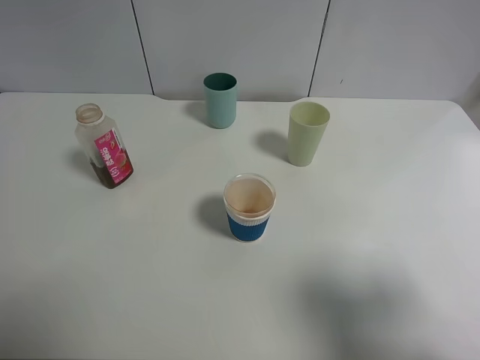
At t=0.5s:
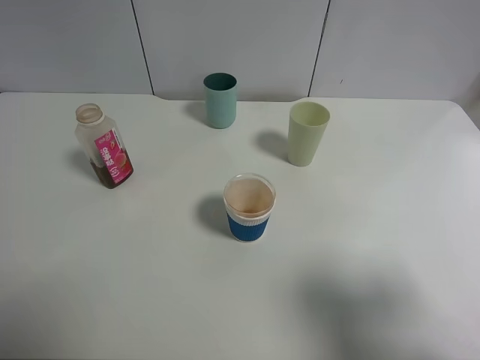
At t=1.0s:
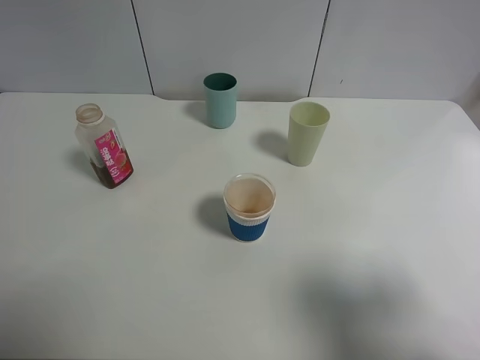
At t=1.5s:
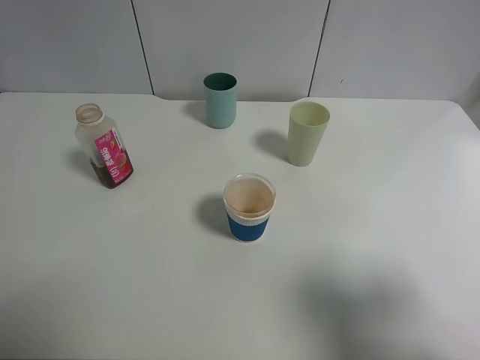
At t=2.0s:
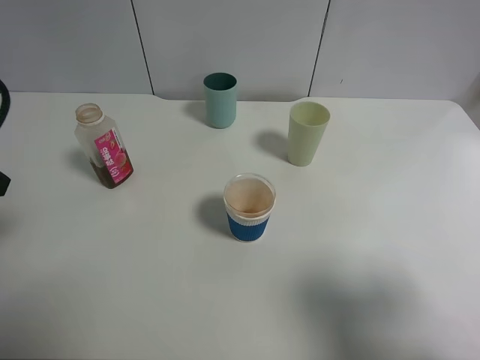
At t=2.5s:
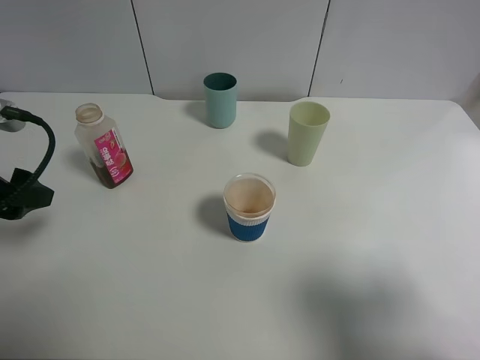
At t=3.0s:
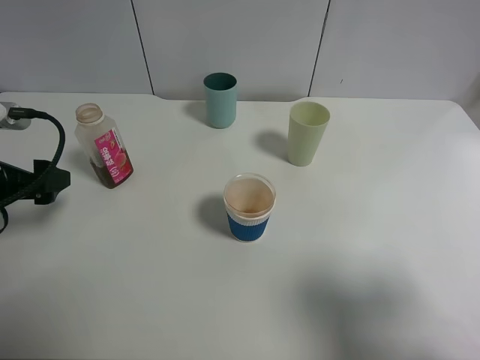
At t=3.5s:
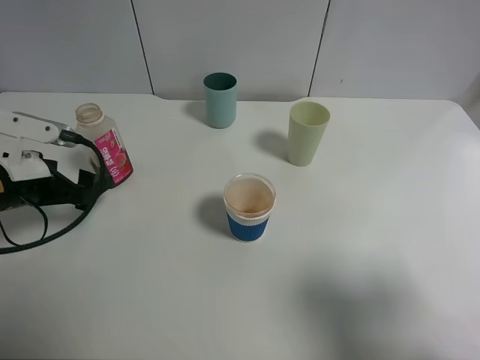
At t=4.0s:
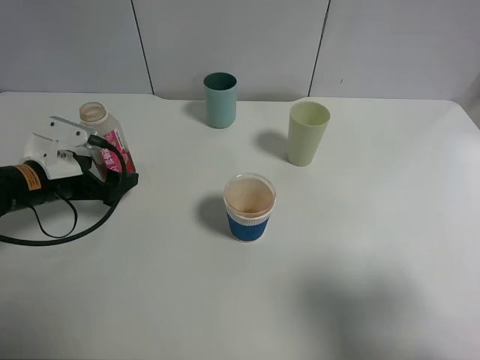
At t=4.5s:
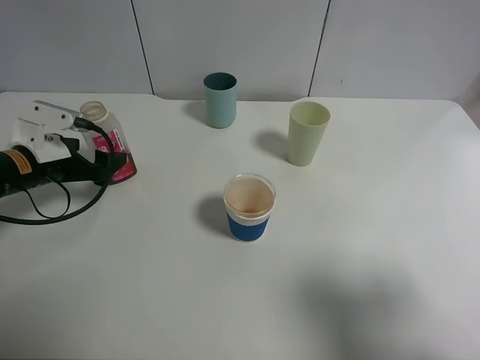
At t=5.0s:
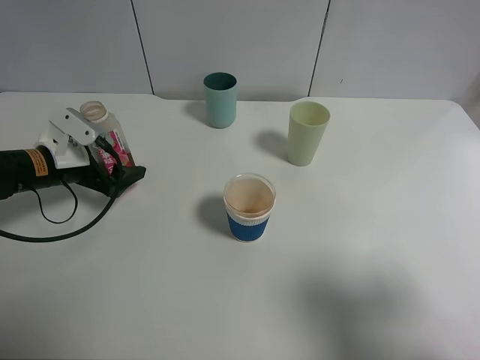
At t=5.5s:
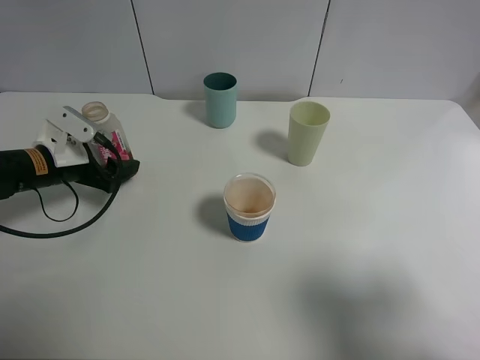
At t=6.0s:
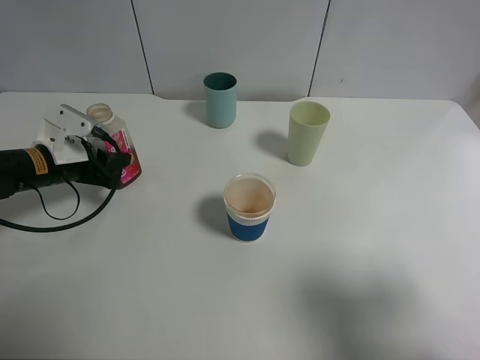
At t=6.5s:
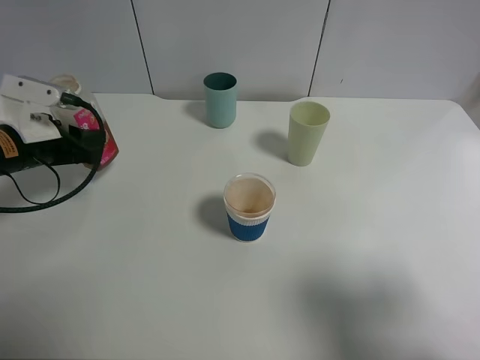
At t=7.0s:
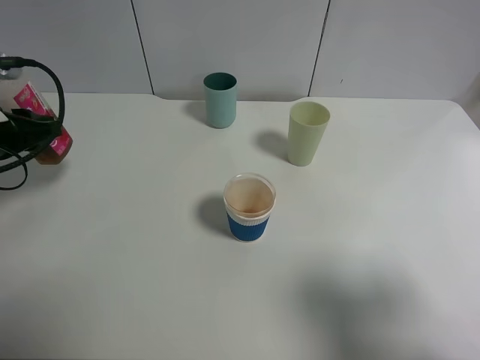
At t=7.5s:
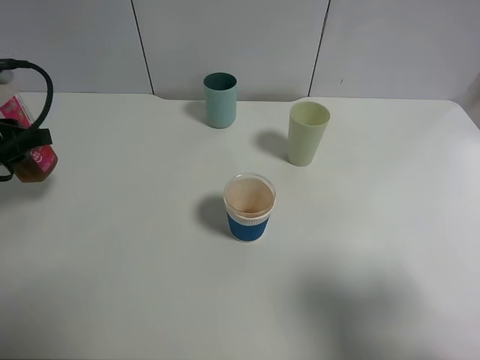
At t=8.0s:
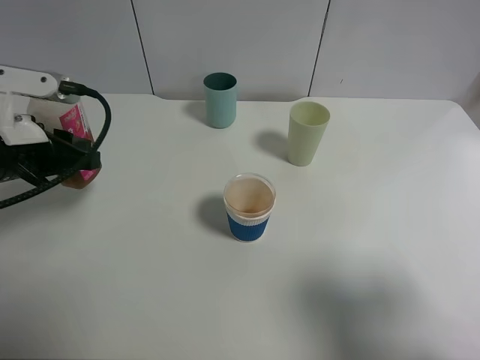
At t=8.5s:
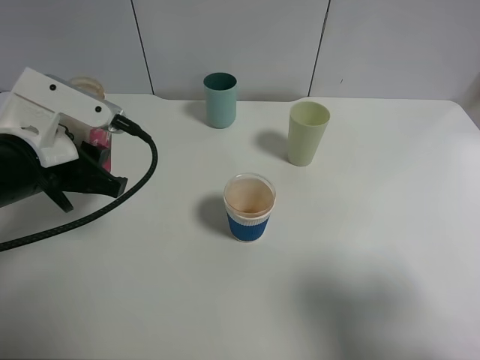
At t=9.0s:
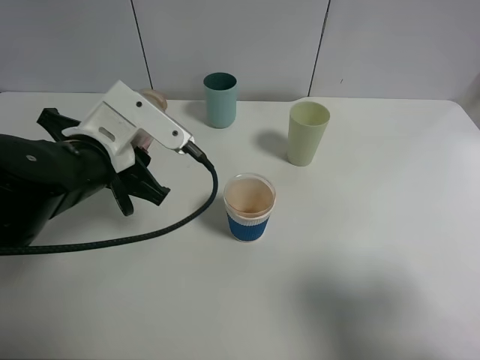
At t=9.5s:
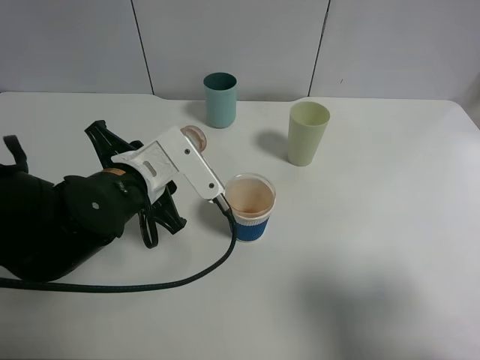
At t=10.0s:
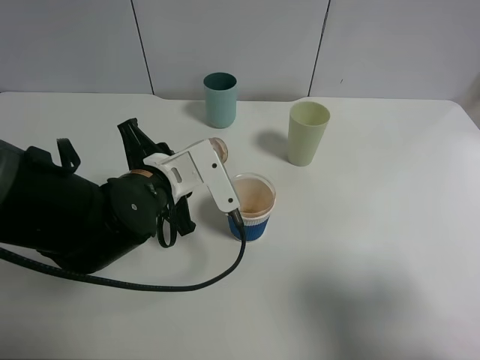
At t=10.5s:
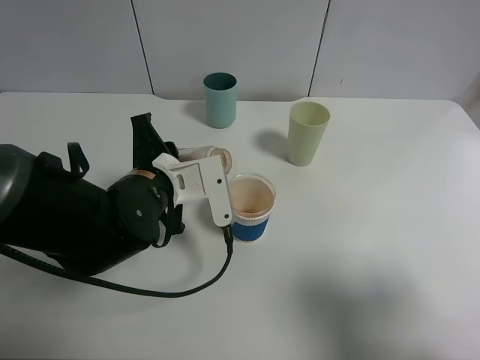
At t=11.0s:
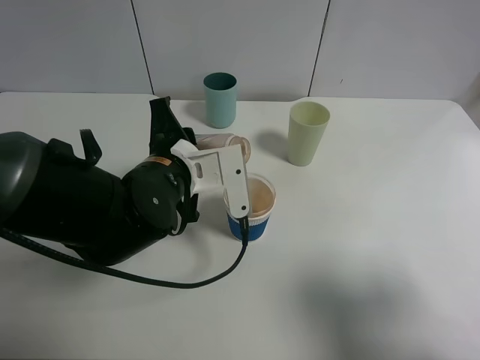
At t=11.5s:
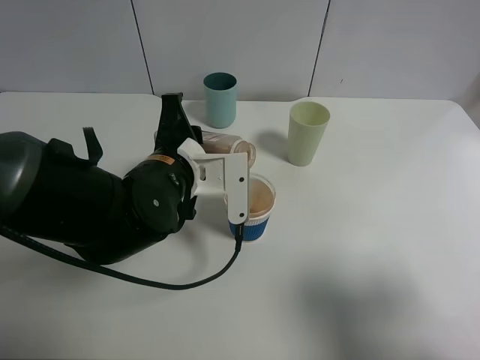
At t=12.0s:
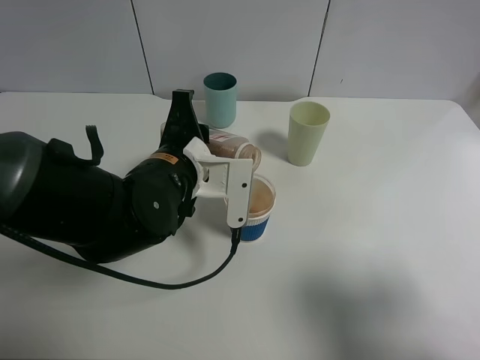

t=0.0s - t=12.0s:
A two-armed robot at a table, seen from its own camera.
Task of the whole recording: use a clamp to hold the bottle of the drink, pour the beverage into a random cup, then clamp the cup containing the drink and pour the drink into another random cup.
Step, t=0.0s - t=7.5s: Pick up the drink bottle with left gripper.
t=2.0s - t=4.0s: The left gripper heads downward and forward, covering approximately 20 cm.
t=4.0s - t=6.0s: The left gripper closes.
t=6.0s - t=8.0s: The left gripper is displaced upward and backward by roughly 15 cm.
t=8.0s - t=10.0s: The left gripper shifts some 15 cm to the right and downward.

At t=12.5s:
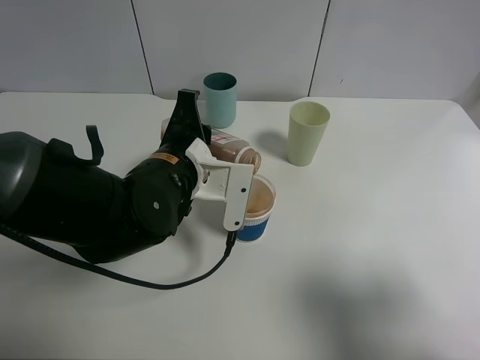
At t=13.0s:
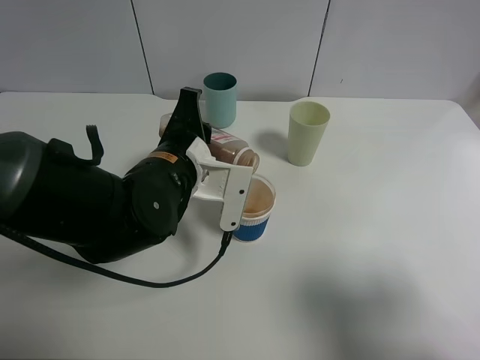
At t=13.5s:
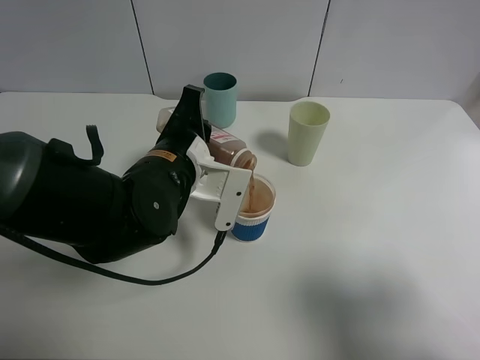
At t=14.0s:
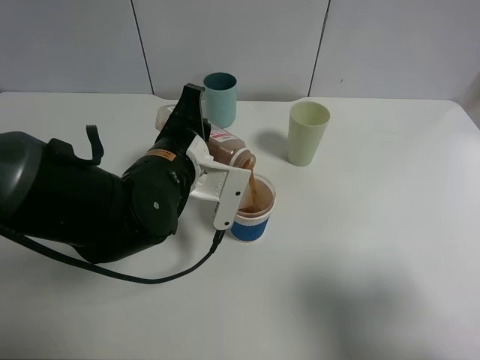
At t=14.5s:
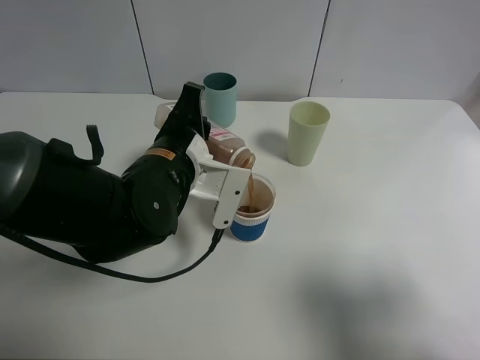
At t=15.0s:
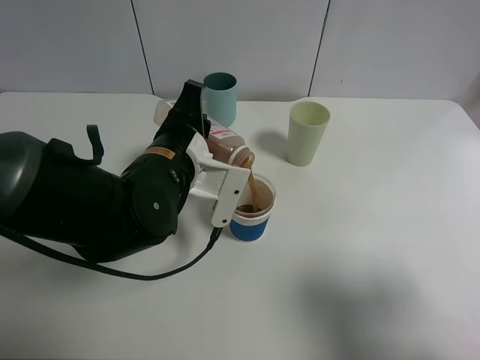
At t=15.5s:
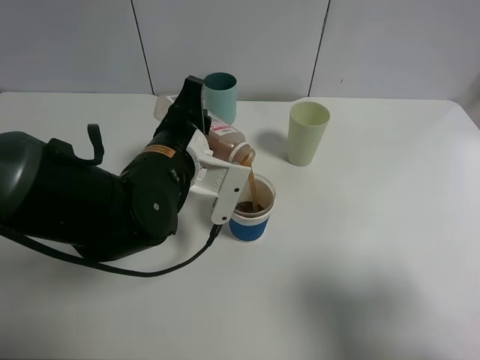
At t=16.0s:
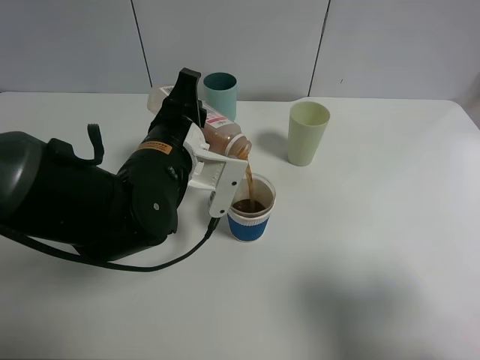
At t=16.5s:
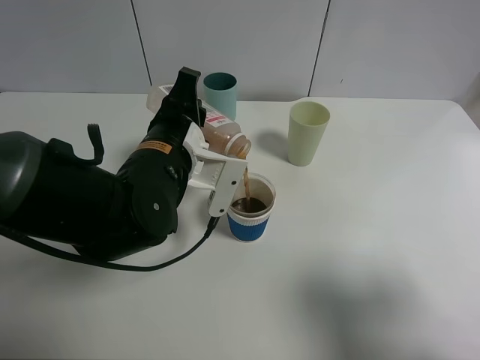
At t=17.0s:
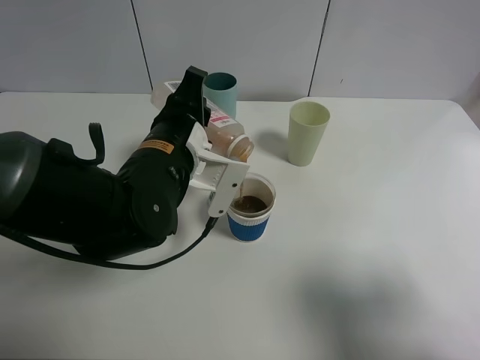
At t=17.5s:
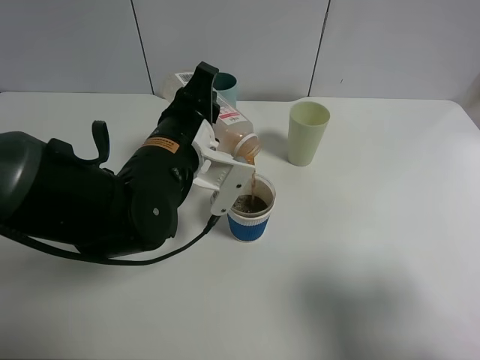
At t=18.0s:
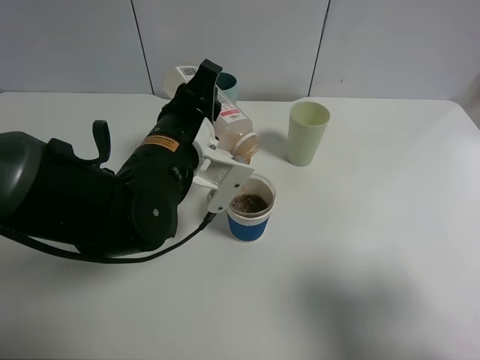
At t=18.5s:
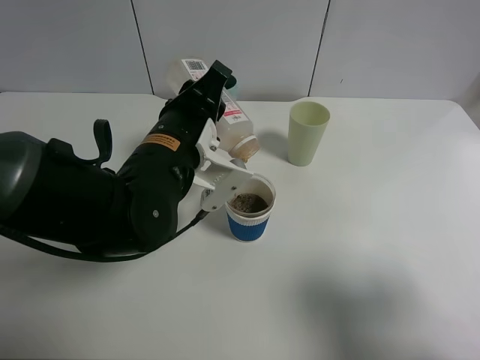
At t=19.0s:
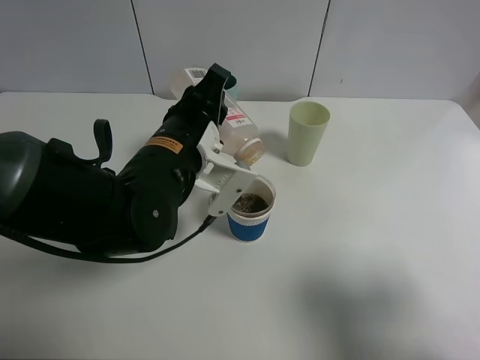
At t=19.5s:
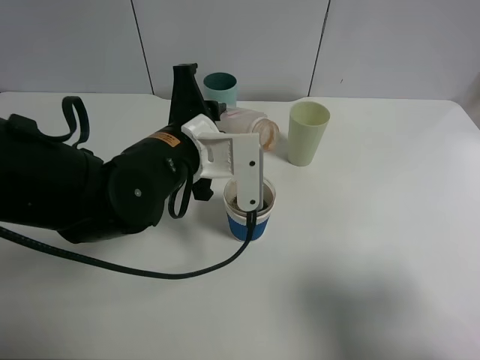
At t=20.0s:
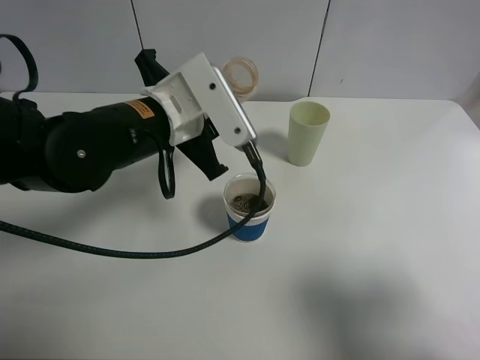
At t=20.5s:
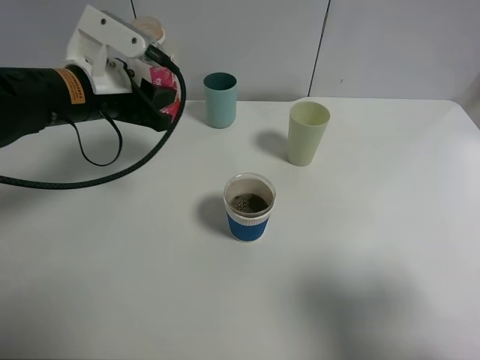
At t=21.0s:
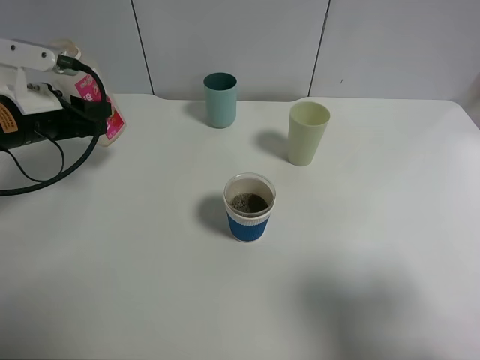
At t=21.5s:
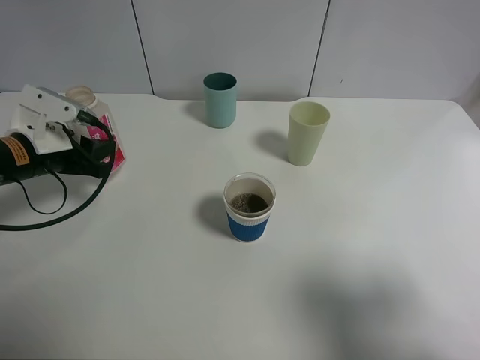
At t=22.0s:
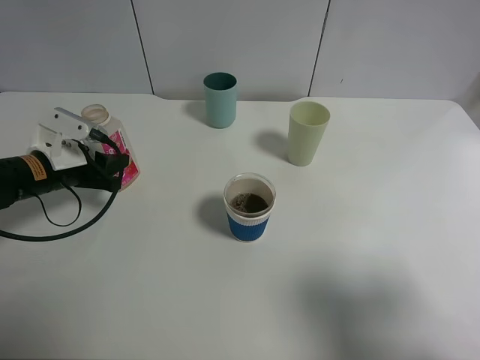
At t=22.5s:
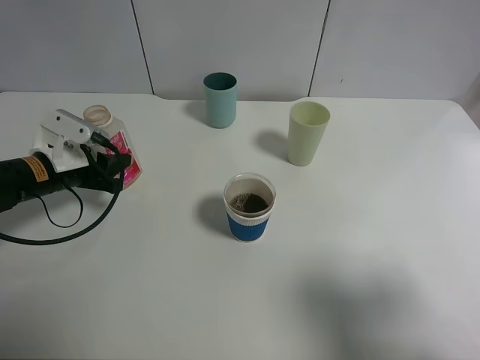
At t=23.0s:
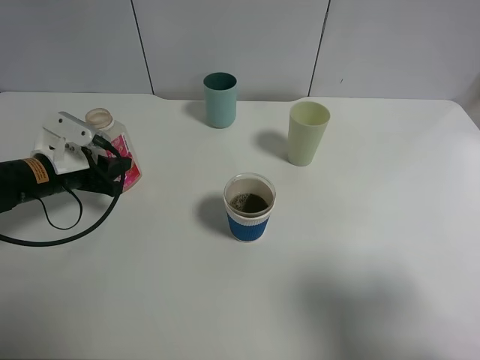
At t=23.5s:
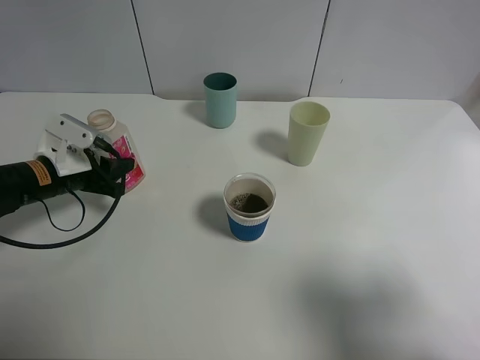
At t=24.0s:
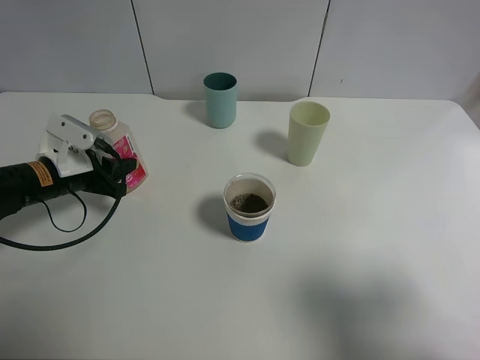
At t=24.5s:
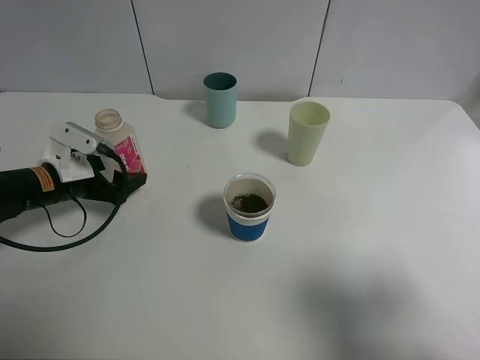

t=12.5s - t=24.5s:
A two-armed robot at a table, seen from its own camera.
Task of the whole recording: use a clamp to hold the bottle of the drink, pour the beverage into a random cup, then clamp the cup containing the drink and pour the drink into another random cup.
Step, t=12.5s - t=19.5s: Pour the drink into the paper cup with left gripper.
t=12.5s - t=16.5s: The grippers move only a little.
t=16.5s - t=18.5s: The grippers move only a little.
t=18.5s - t=20.5s: The left gripper heads to the left and forward, covering some 15 cm.
t=20.5s - t=22.5s: The left gripper heads downward and to the left, covering some 15 cm.
t=22.5s - t=24.5s: The left gripper opens its fingers.

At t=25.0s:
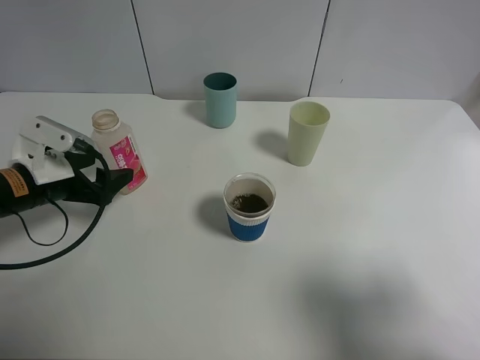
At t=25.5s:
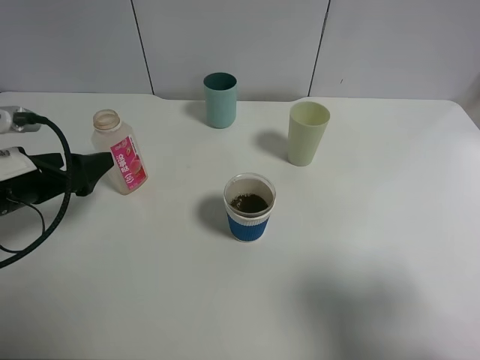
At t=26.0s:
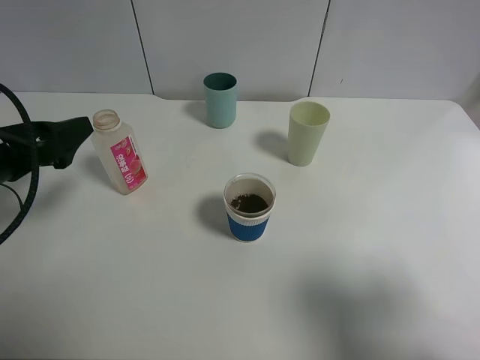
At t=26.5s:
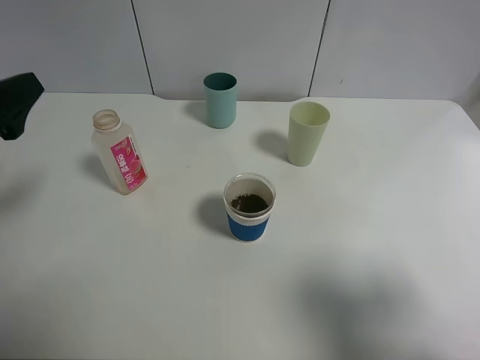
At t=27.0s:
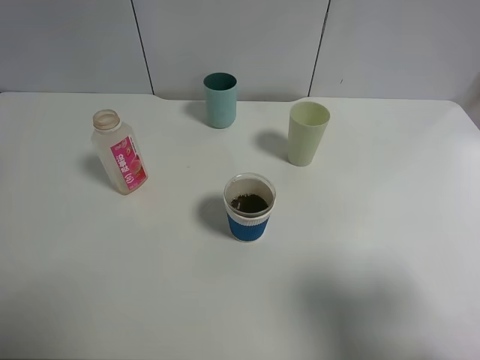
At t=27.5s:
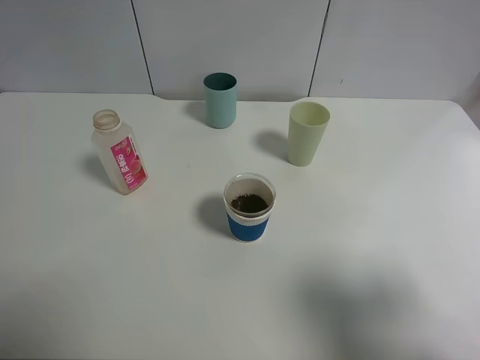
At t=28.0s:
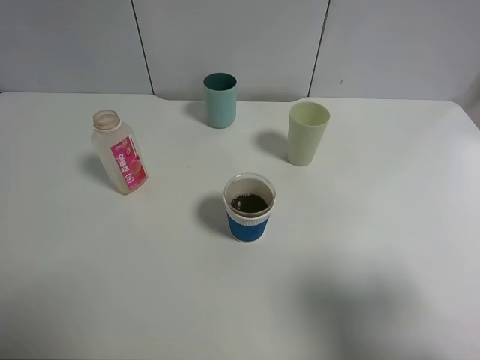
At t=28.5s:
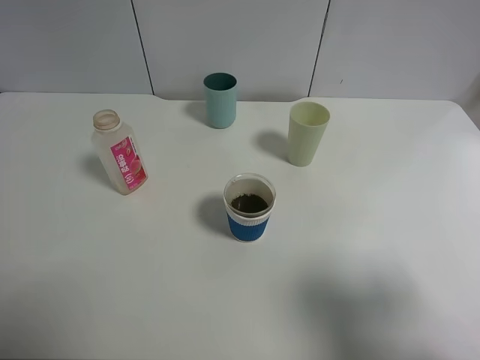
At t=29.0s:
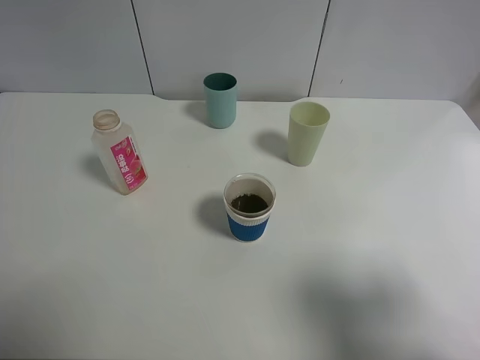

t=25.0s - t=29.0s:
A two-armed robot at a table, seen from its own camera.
Task of the whole recording: use a clamp to hold the bottle of the drink, pour the beverage into a random cup, then clamp the cup containing the drink and pour the drink into another random cup.
t=25.0s - t=27.0s: The left gripper moves upward and backward, some 20 cm.
